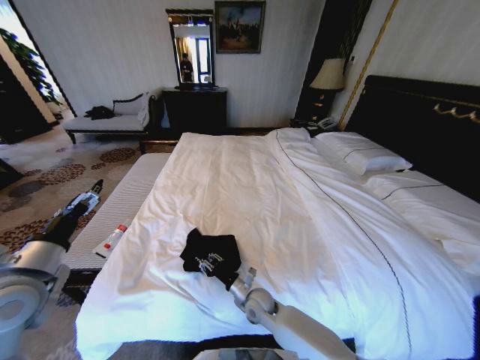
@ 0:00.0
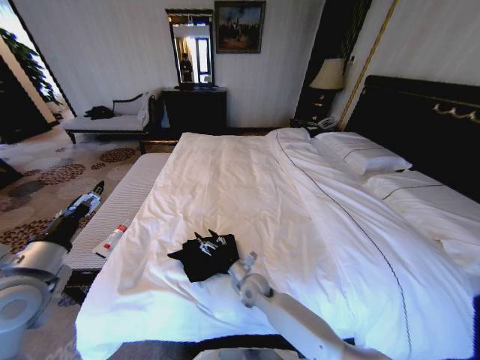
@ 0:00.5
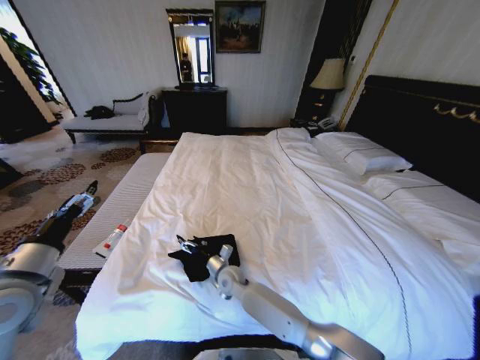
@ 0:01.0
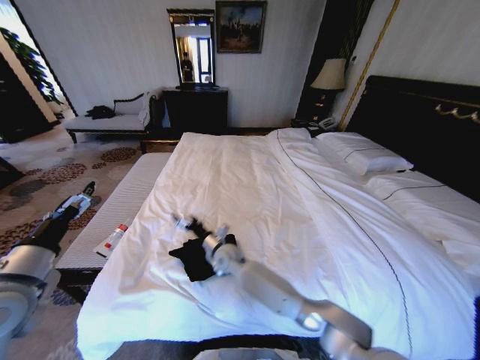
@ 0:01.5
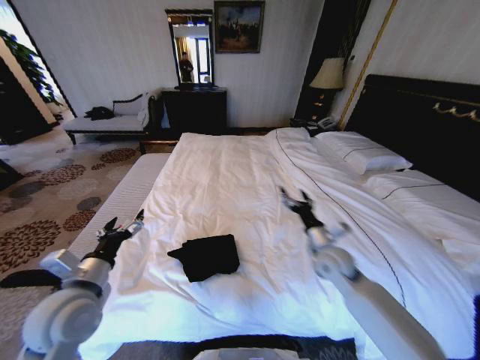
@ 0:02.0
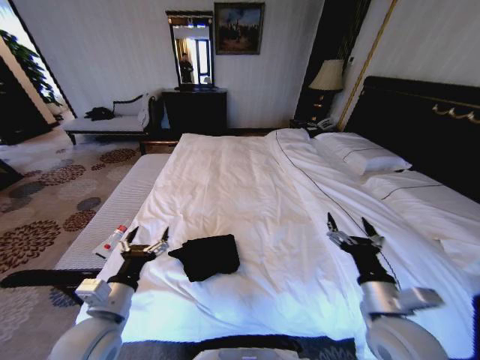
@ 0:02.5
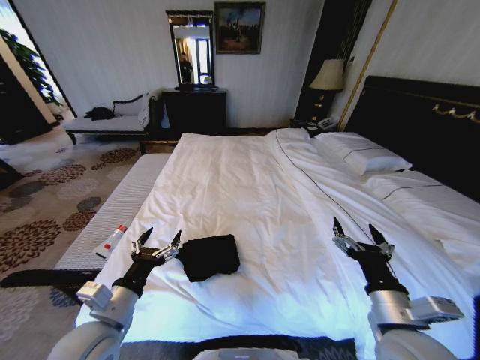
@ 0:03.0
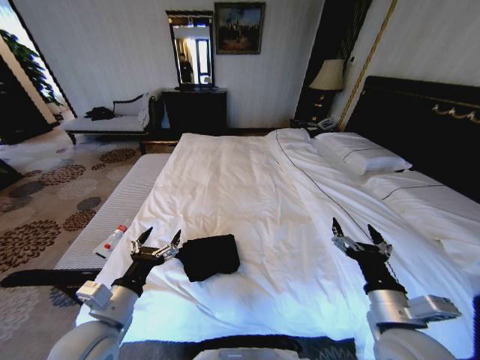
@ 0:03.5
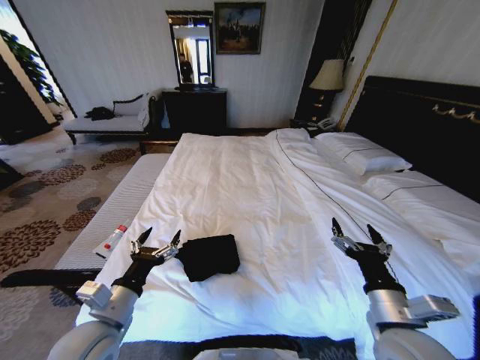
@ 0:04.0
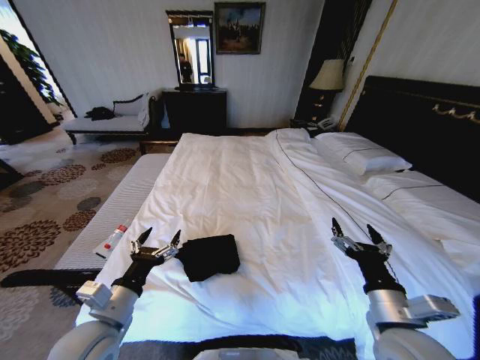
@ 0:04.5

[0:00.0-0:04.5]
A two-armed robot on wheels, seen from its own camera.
Task of the whole recording: Fold the clothes on the bed.
0:00.0 to 0:02.0: The right gripper shifts approximately 25 cm to the right and upward, and opens its fingers; the left gripper moves to the right and downward, about 10 cm.
0:02.0 to 0:04.5: The right gripper is displaced backward by some 20 cm, while the left gripper ends up about 5 cm from where it was.

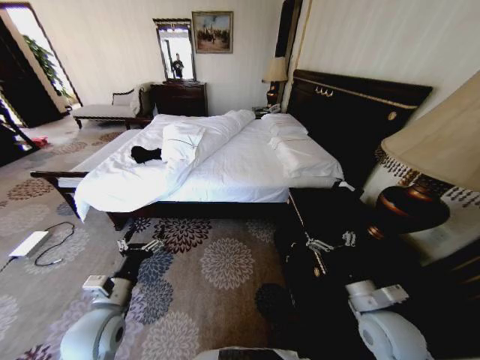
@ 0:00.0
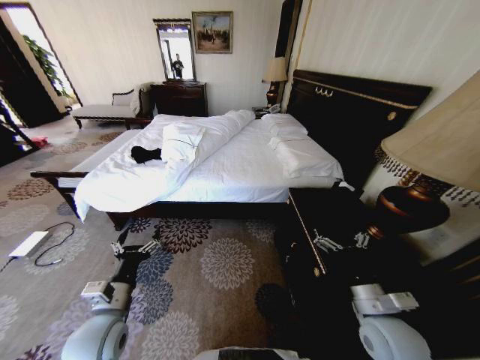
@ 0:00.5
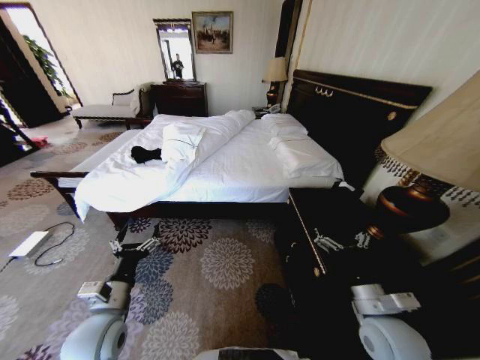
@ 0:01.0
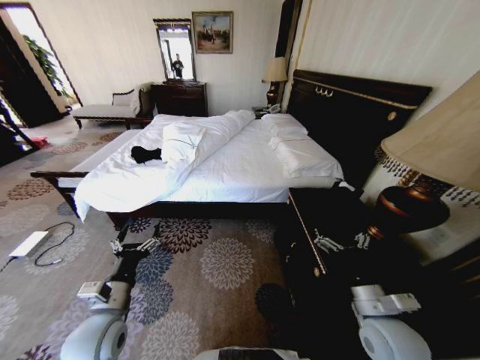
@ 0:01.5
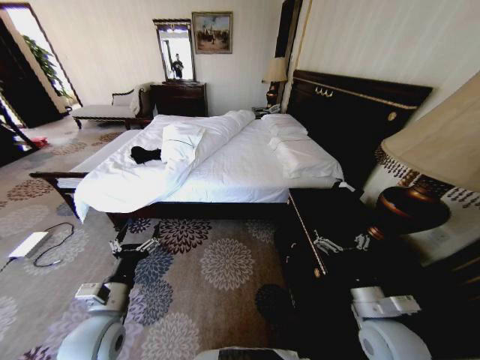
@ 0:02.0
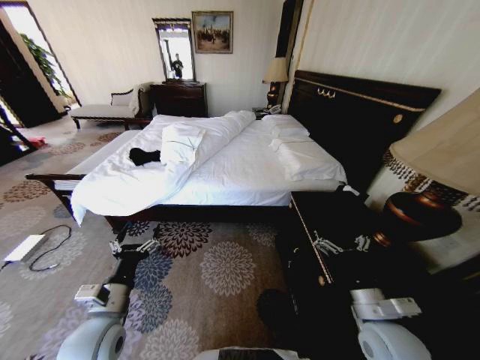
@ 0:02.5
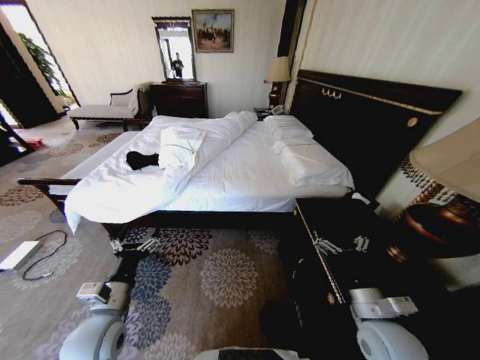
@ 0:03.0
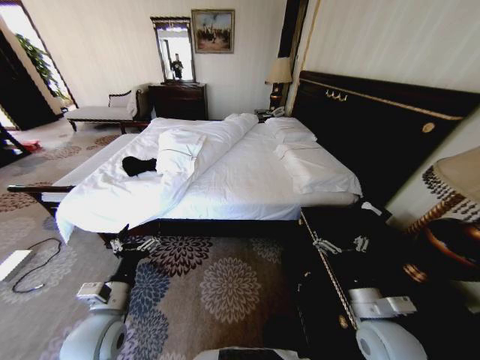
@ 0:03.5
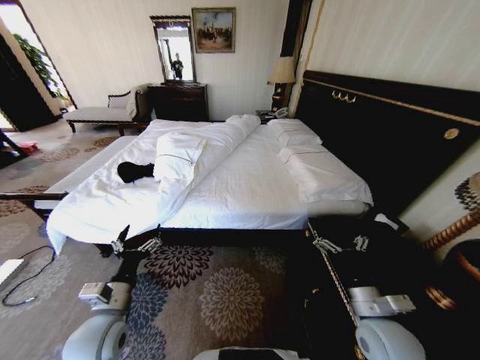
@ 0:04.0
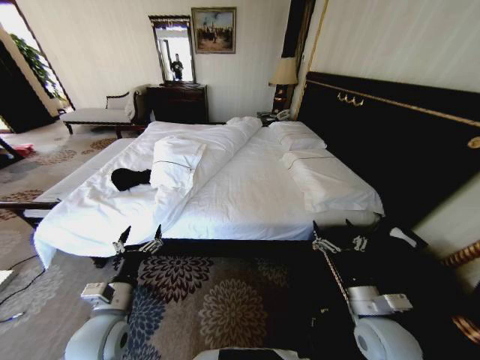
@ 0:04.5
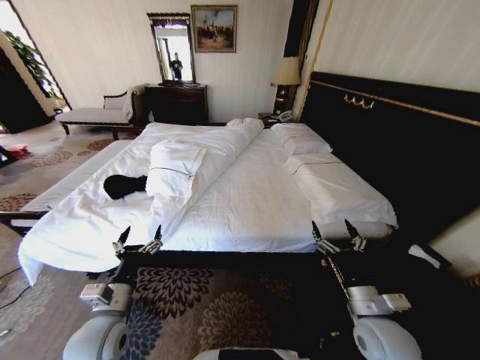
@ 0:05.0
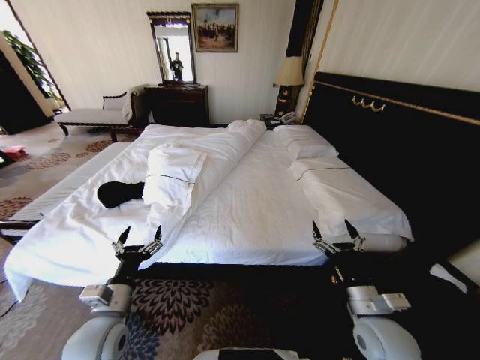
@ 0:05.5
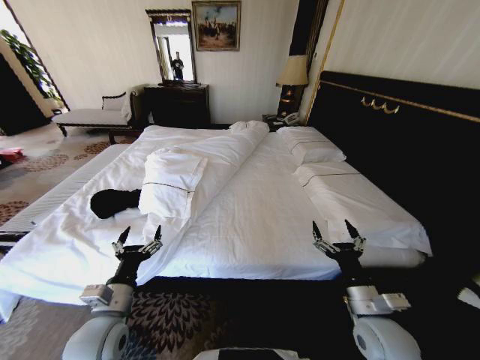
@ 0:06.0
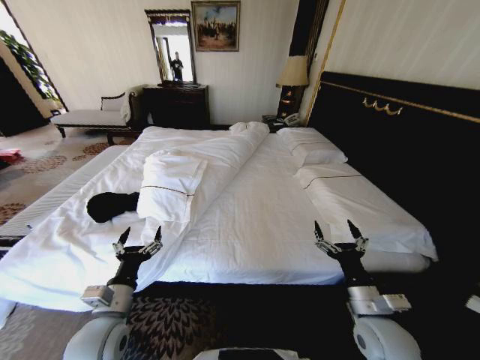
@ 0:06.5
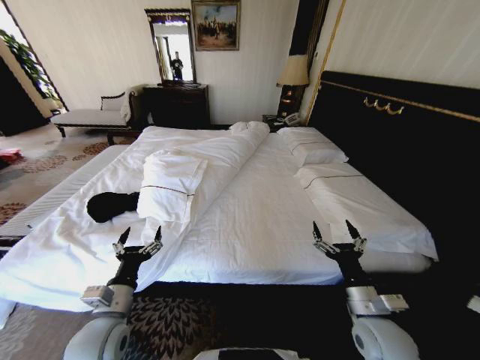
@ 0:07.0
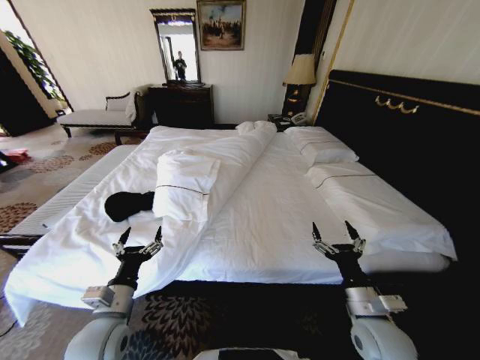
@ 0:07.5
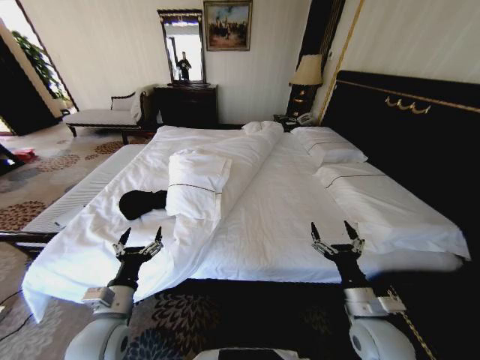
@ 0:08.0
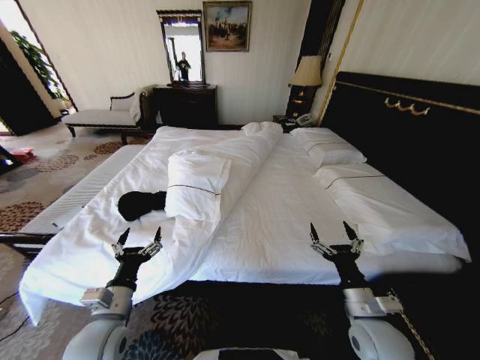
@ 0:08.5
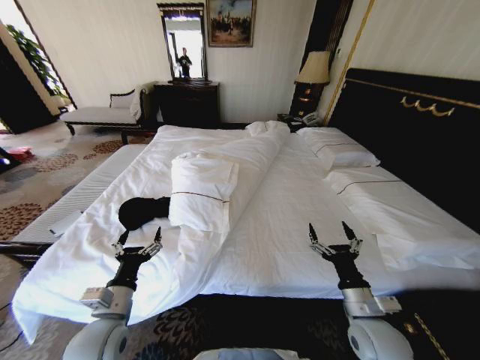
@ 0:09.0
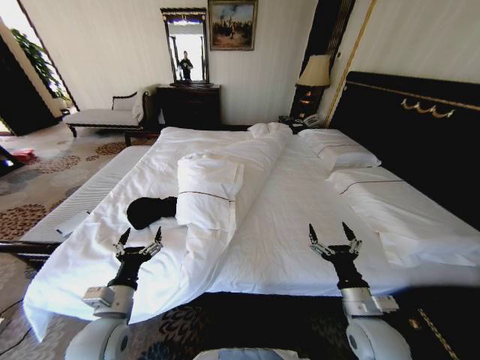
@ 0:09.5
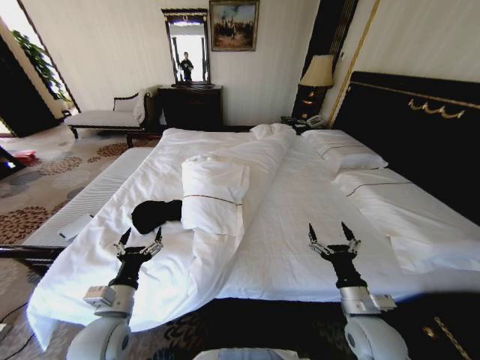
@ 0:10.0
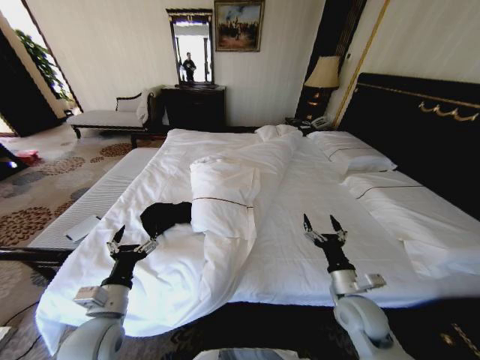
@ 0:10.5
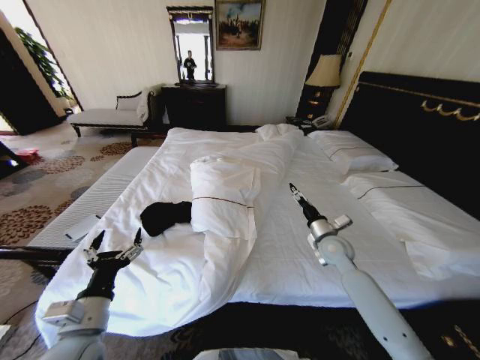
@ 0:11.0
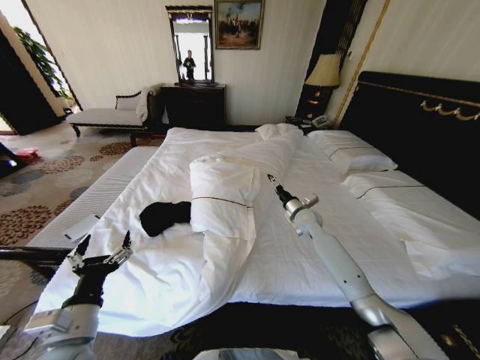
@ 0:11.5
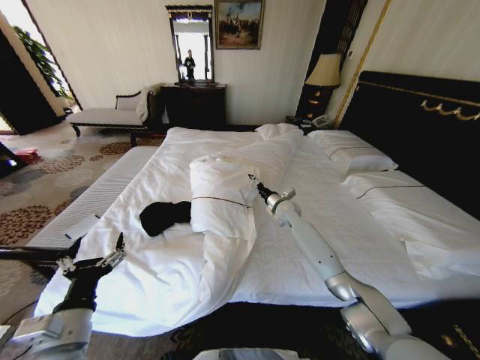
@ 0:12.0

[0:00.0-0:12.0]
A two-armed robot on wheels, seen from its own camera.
Task of the whole recording: Fold the clothes on the bed.
0:10.0 to 0:12.0: The right gripper heads forward, covering roughly 35 cm; the left gripper heads backward, covering roughly 5 cm.

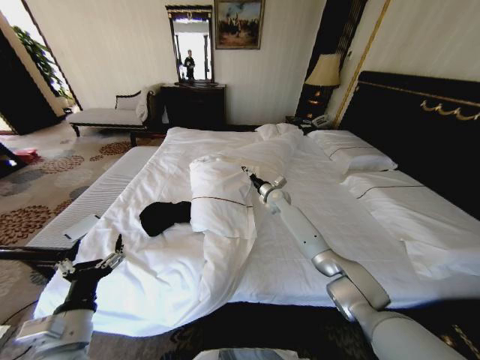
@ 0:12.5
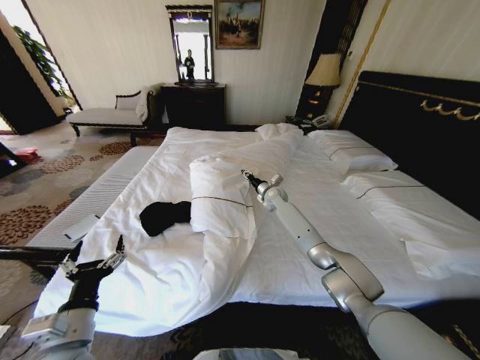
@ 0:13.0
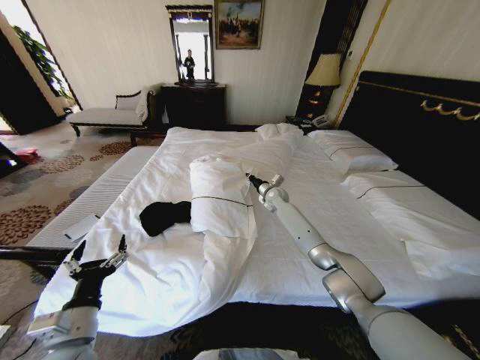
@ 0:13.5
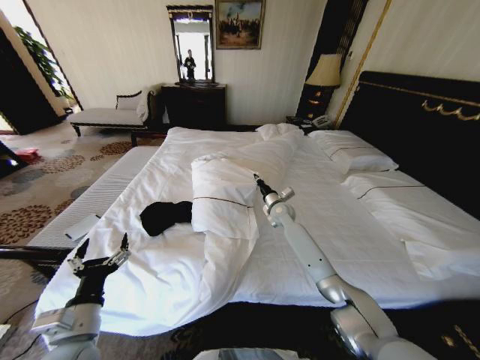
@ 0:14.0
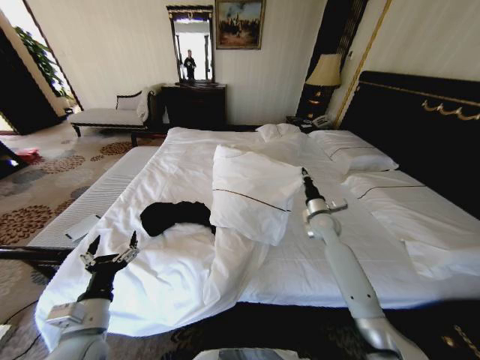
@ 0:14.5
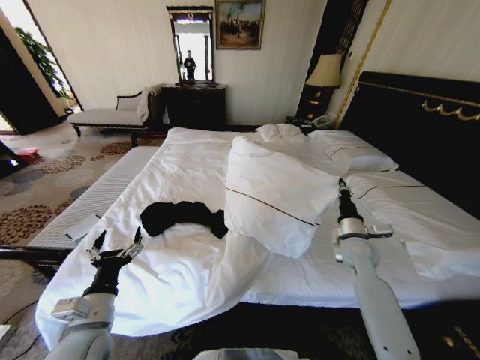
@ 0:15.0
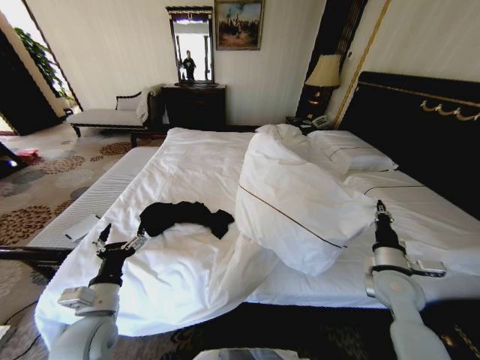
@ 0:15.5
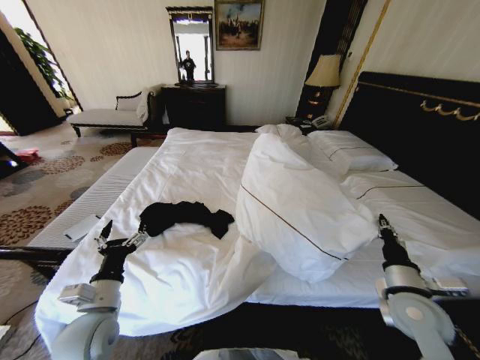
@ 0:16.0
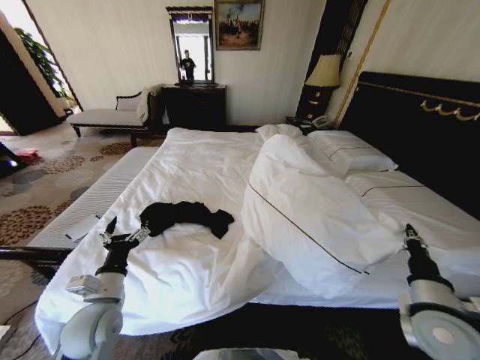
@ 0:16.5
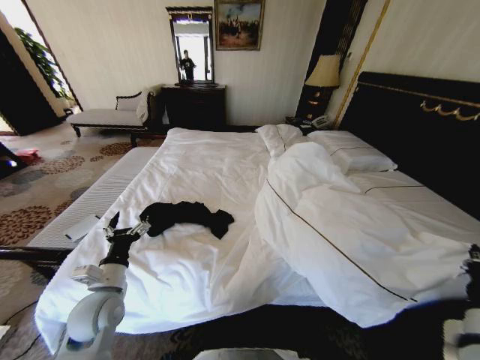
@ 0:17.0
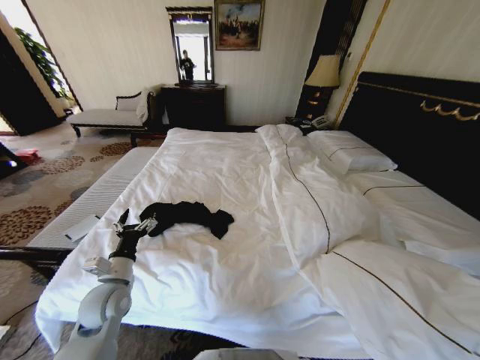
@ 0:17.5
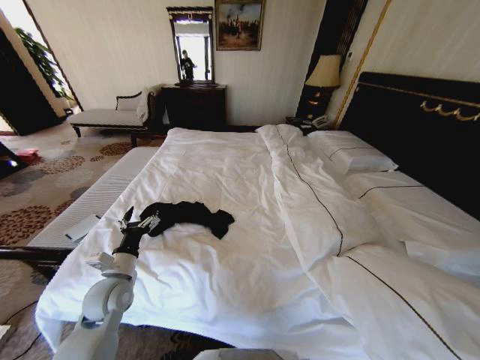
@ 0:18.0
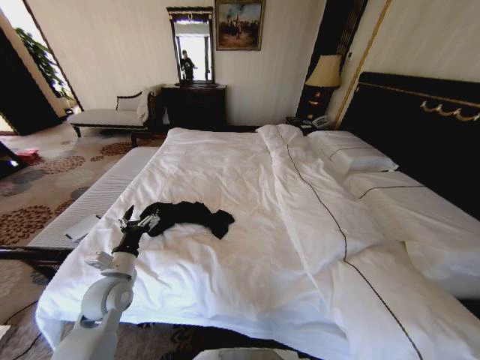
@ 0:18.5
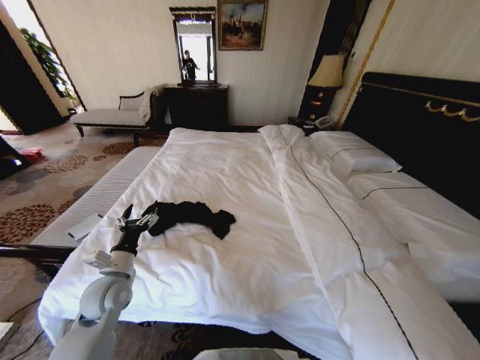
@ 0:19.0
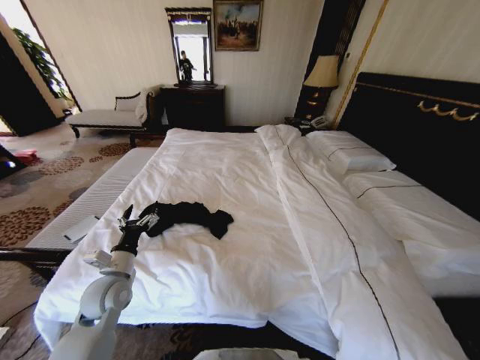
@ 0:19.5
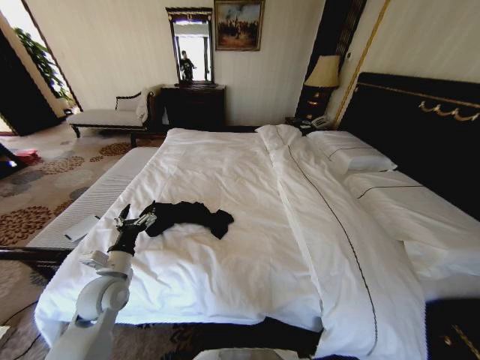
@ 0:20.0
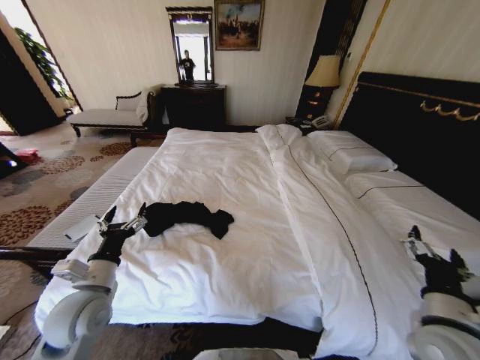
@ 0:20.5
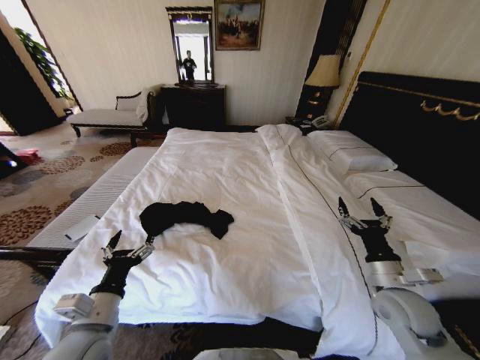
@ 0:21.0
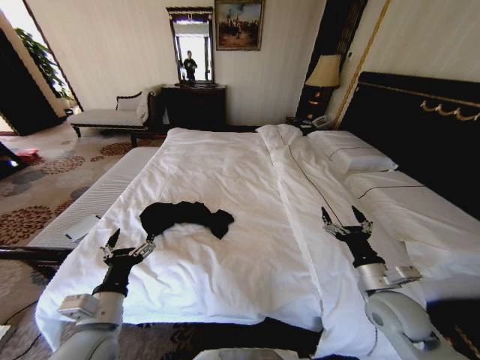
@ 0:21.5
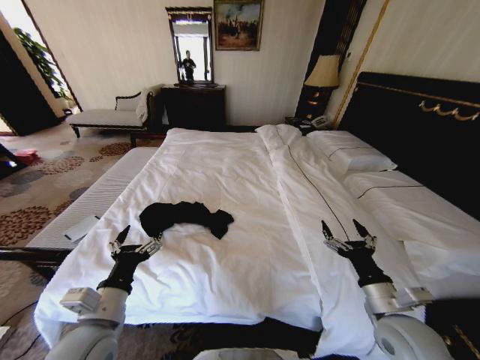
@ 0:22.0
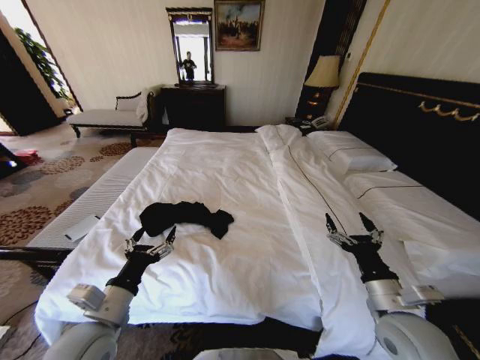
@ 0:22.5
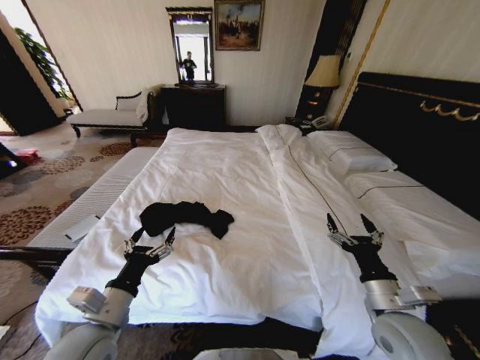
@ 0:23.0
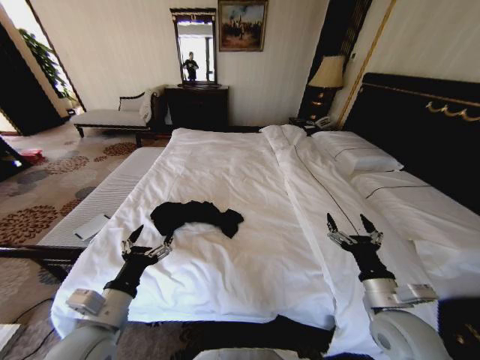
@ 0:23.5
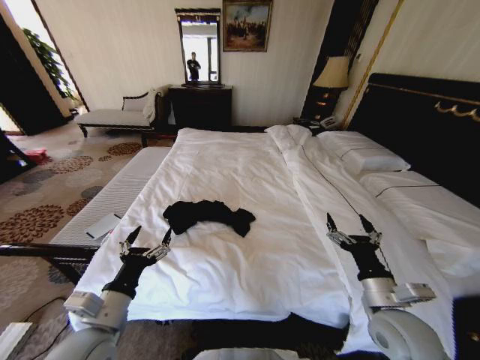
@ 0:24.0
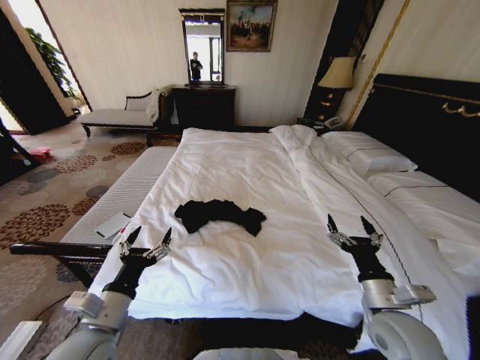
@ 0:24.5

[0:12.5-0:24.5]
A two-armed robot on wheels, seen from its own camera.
Task of the whole recording: Fold the clothes on the bed.
0:12.5 to 0:14.5: The right gripper shifts roughly 20 cm backward and to the right, and closes.
0:14.5 to 0:16.5: The left gripper goes approximately 5 cm forward. Meanwhile the right gripper shifts about 30 cm backward.
0:16.5 to 0:18.5: The left gripper is displaced forward by some 5 cm, while the right gripper goes some 15 cm backward.
0:18.5 to 0:20.5: The right gripper goes about 10 cm forward, and opens up, while the left gripper moves roughly 5 cm.
0:20.5 to 0:22.5: The left gripper is displaced backward by roughly 5 cm.
